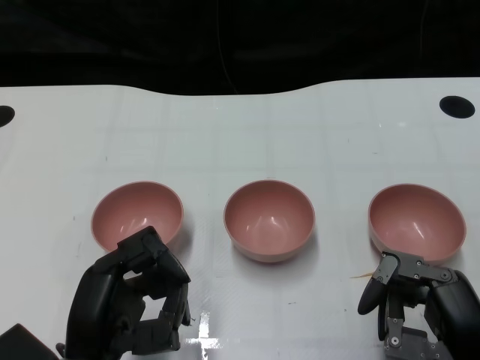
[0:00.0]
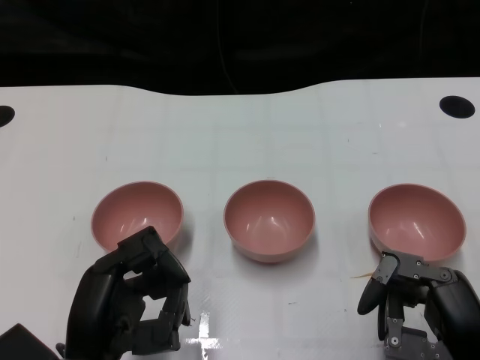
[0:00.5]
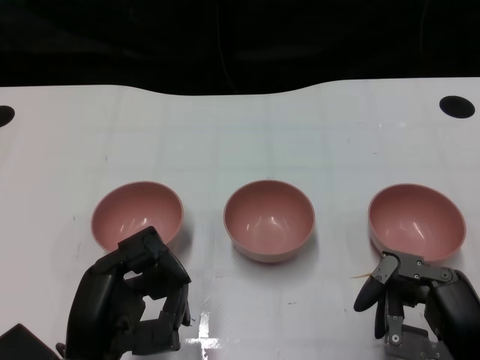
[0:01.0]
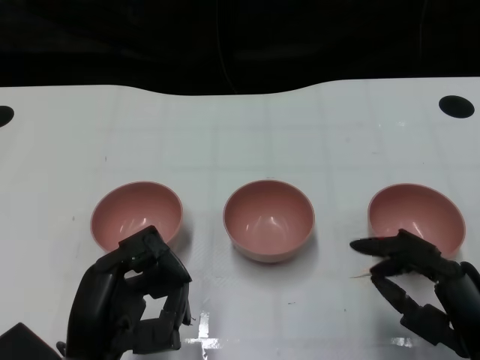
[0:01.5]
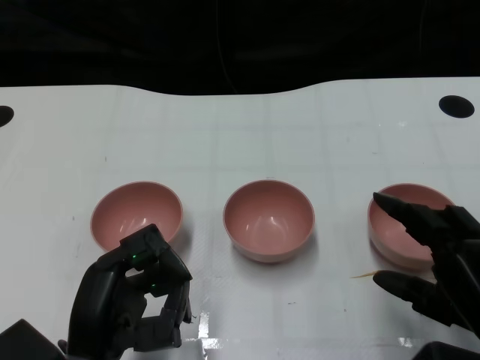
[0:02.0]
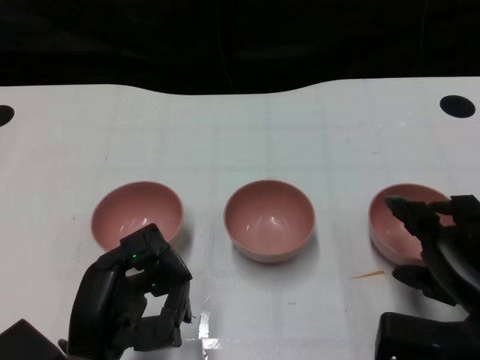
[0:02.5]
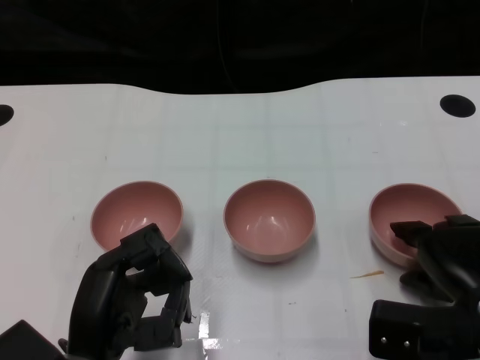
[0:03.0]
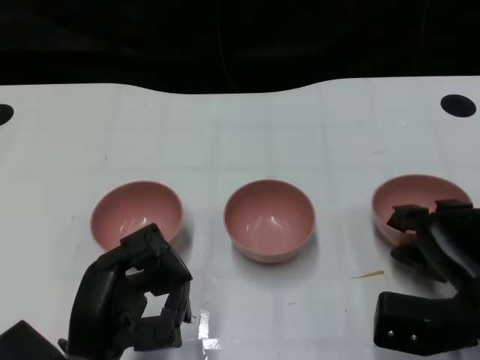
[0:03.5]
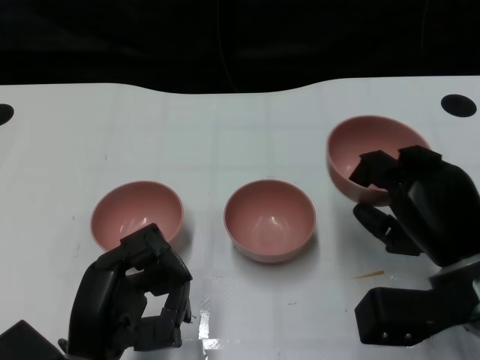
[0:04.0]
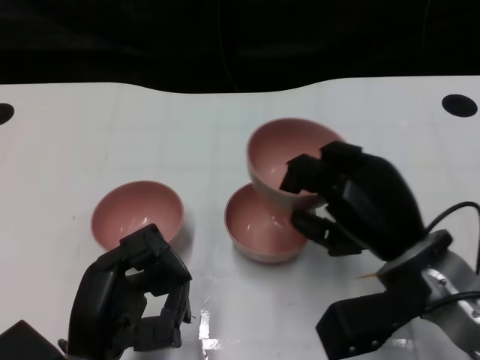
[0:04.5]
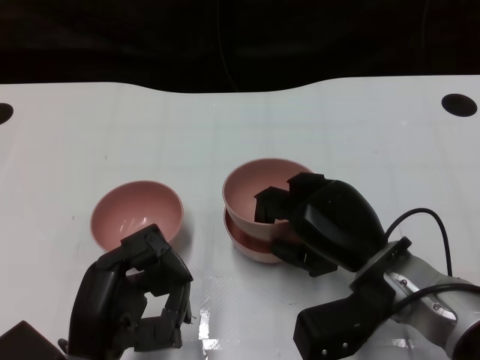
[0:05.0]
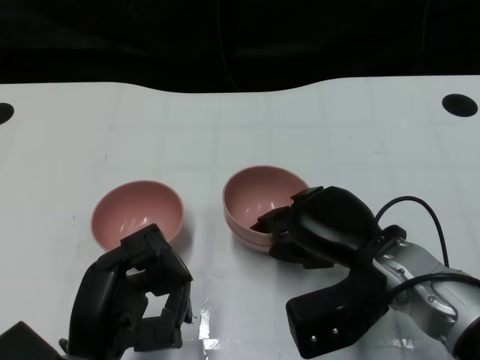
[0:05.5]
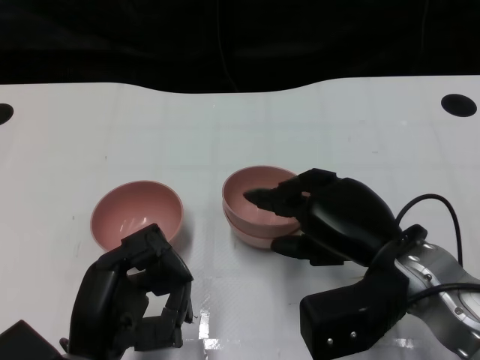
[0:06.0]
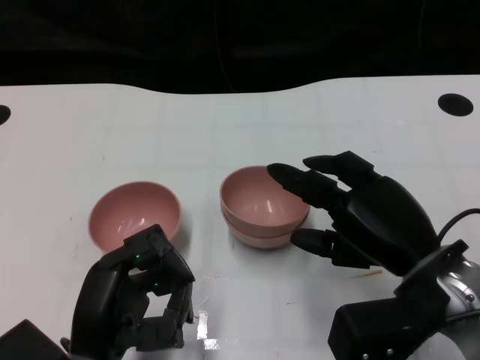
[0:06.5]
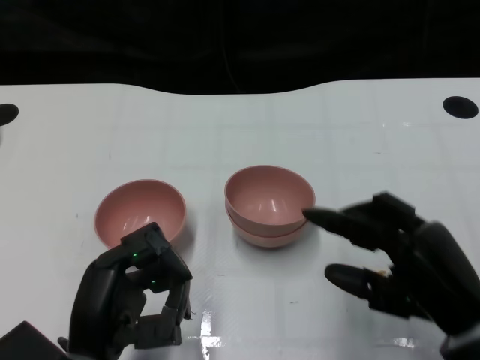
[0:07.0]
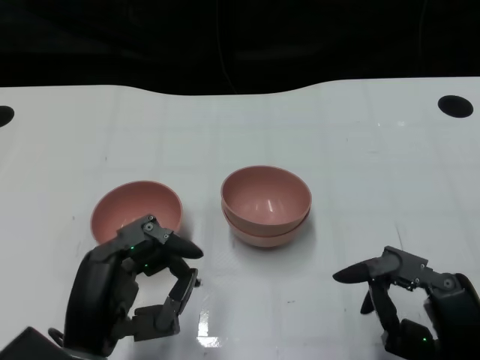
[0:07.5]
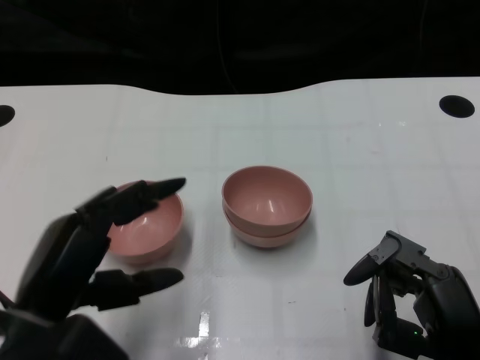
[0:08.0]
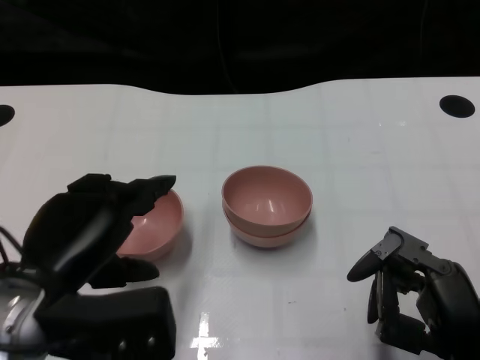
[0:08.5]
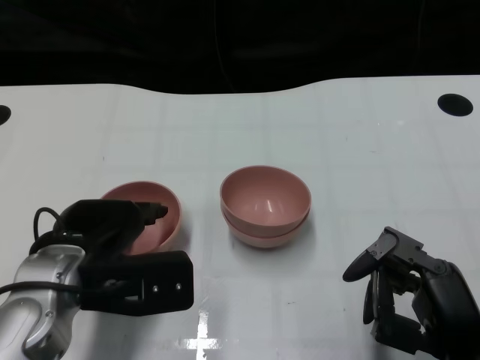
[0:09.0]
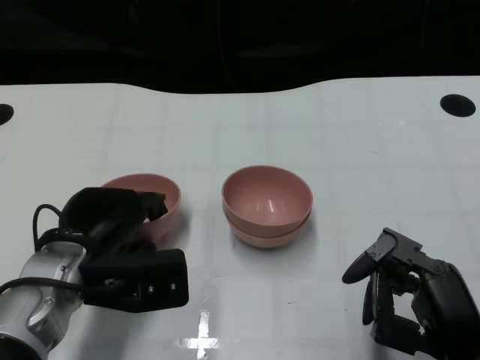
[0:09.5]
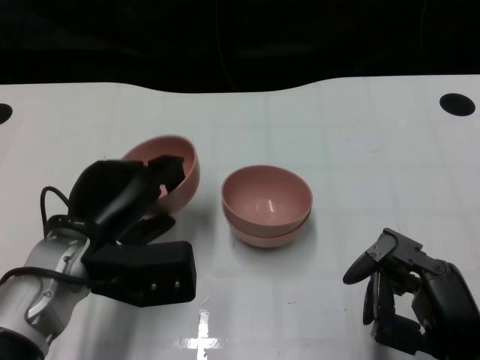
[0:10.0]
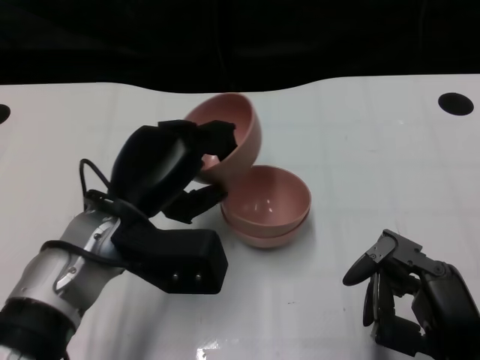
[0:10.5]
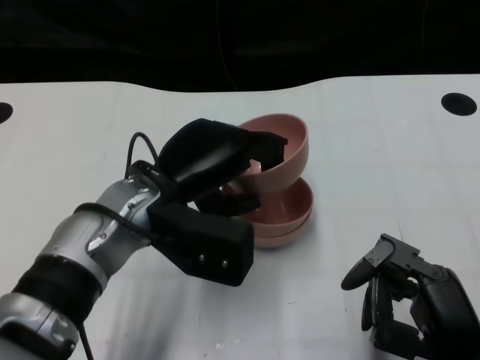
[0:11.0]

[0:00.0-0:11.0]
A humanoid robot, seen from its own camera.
Task of the whole recording: Pick up the bowl on one side of the table and place it on top of the middle bowl, then pick up the bowl on the other side of the table and place it on top of the middle bowls.
Step, 0:01.5 to 0:03.5: Grasp the bowl on the right with the right gripper.
Step, 0:04.0 to 0:06.0: Place the bowl on the right onto the bowl in the middle with right gripper.
Step, 0:06.5 to 0:09.5: Grasp the bowl on the left with the left gripper.
0:02.0 to 0:03.5: The right hand is displaced forward by roughly 5 cm.
0:03.5 to 0:05.5: The right hand is displaced to the left by approximately 10 cm.
0:05.5 to 0:07.5: The right hand travels backward and to the right by approximately 15 cm.
0:07.5 to 0:09.0: The left hand goes some 10 cm forward.
0:09.0 to 0:11.0: The left hand shifts some 10 cm to the right.

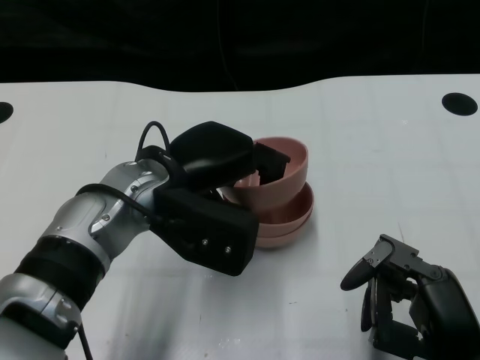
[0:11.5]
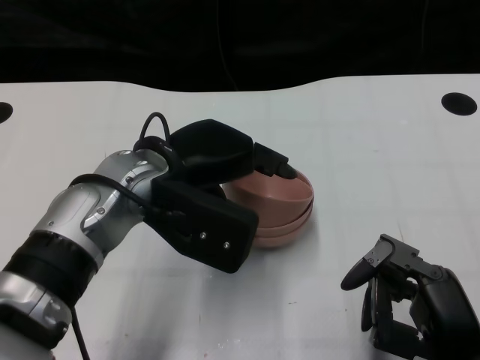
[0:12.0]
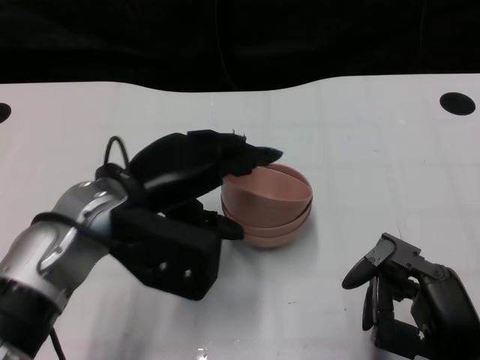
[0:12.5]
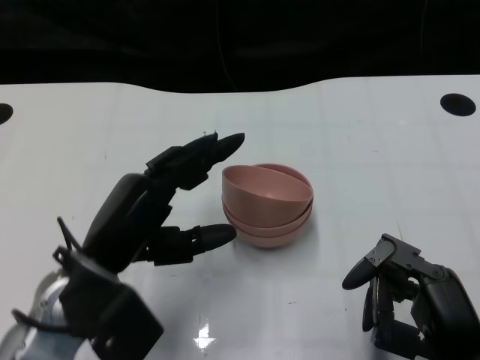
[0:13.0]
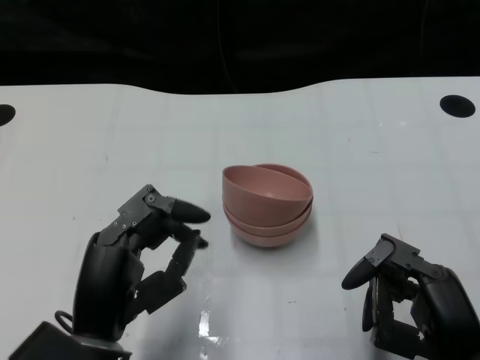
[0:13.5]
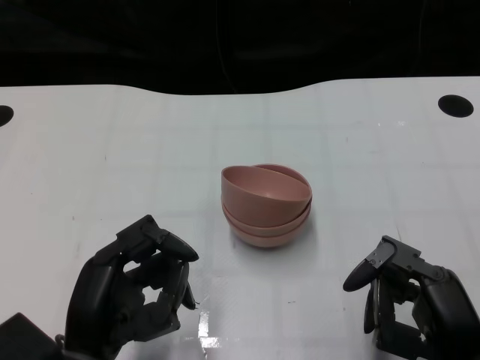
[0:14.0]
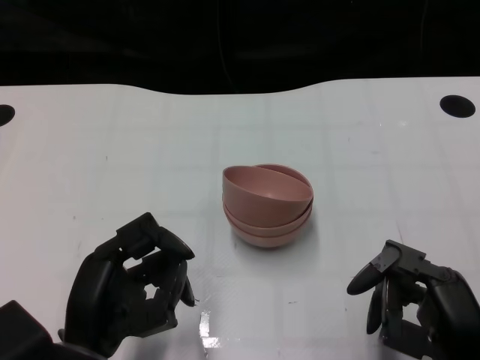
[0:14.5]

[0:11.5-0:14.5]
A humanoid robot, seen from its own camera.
Task of the whole recording: Pick up the bowl on one side of the table and place it on top of the middle bowl, then pick up the bowl on the other side of the table and place it on top of the middle bowls.
0:11.5 to 0:13.0: The left hand moves backward and to the left, some 10 cm.
0:13.0 to 0:14.5: The left hand goes approximately 5 cm backward.

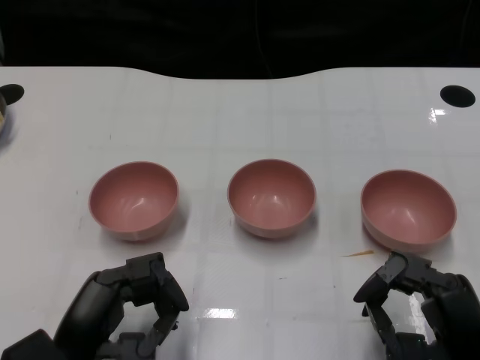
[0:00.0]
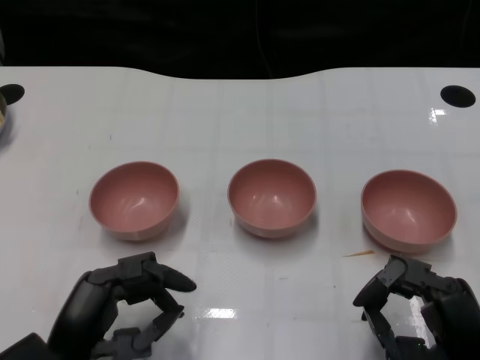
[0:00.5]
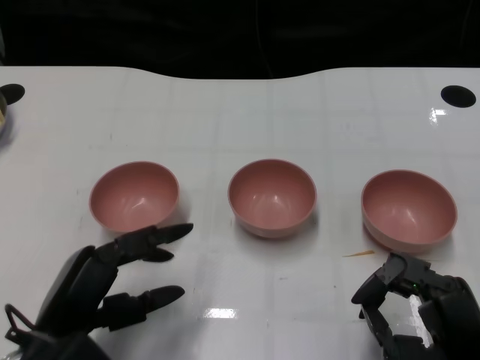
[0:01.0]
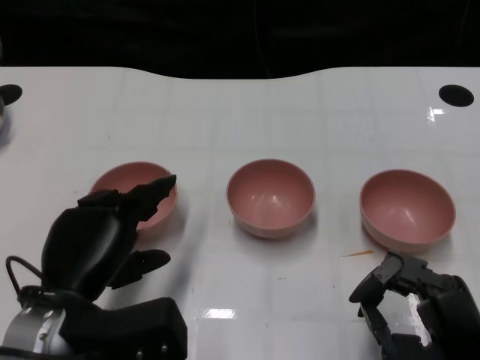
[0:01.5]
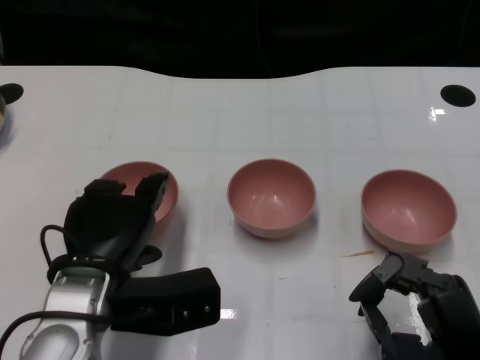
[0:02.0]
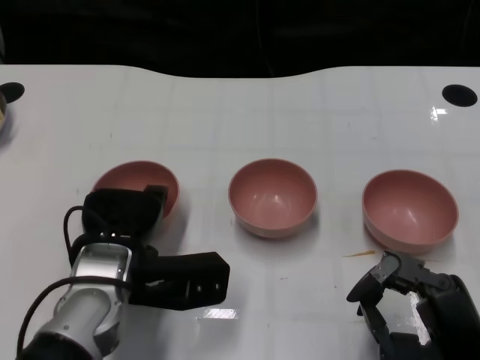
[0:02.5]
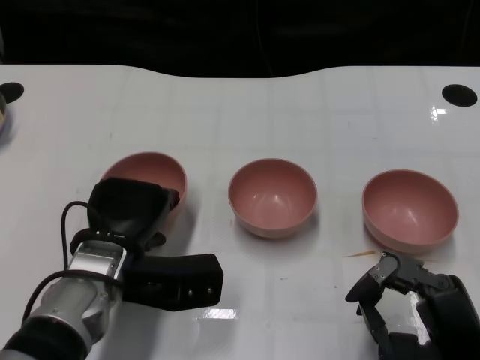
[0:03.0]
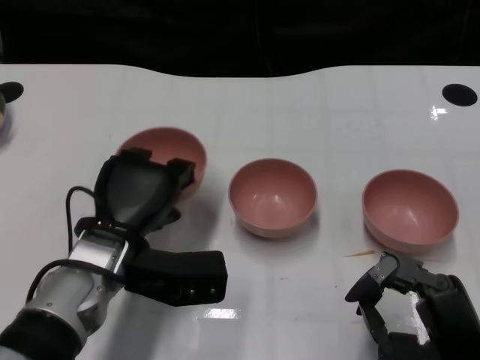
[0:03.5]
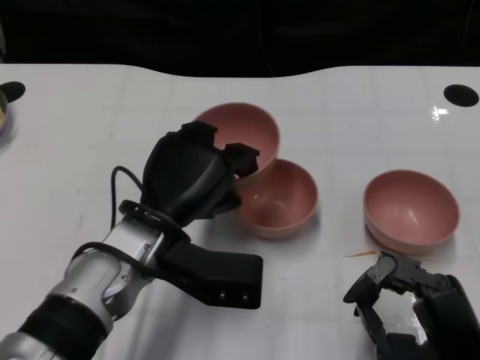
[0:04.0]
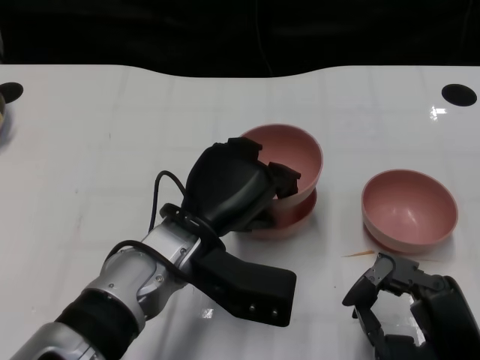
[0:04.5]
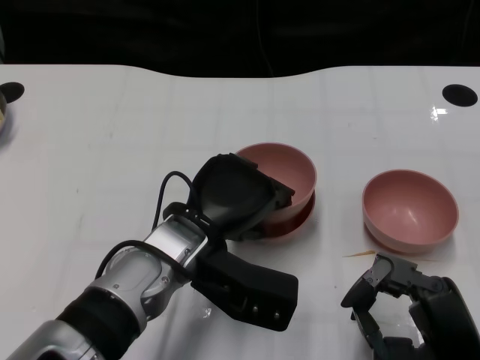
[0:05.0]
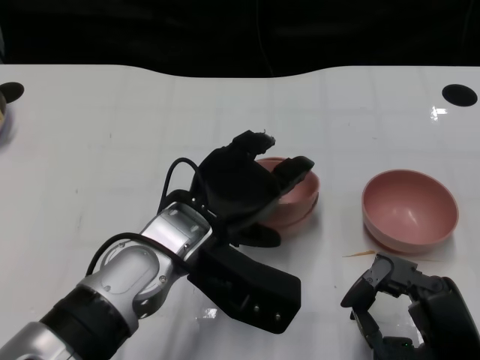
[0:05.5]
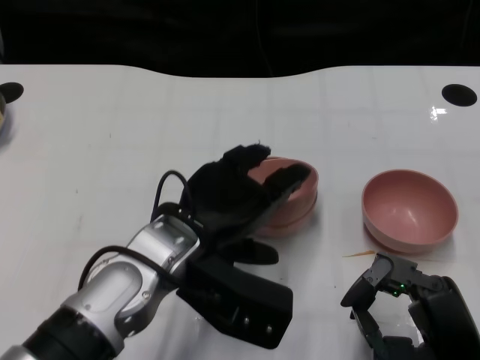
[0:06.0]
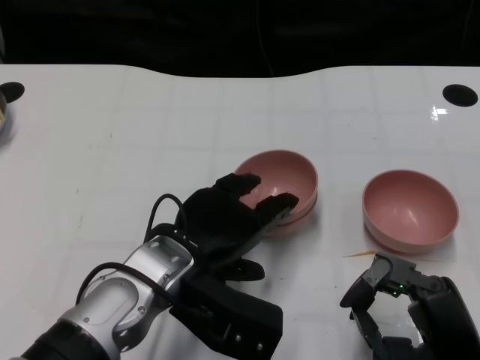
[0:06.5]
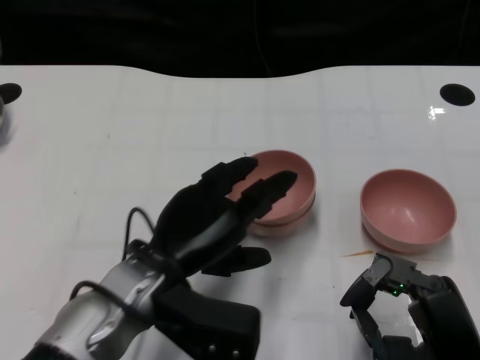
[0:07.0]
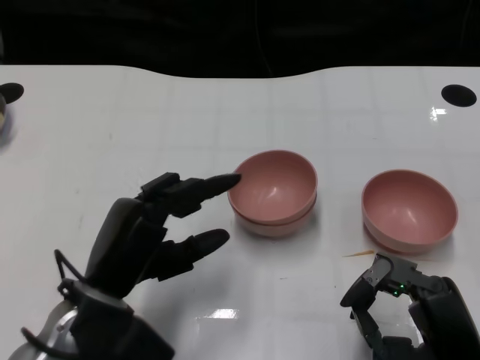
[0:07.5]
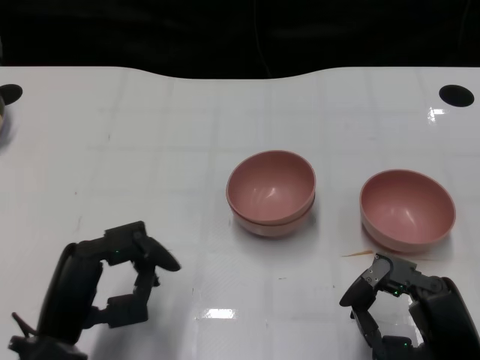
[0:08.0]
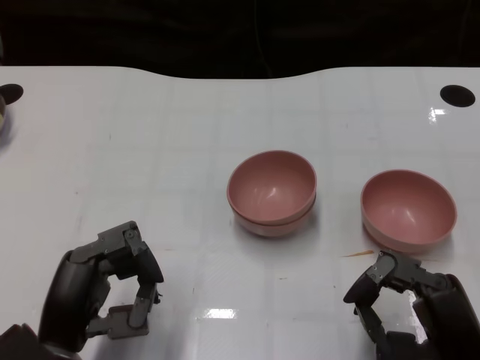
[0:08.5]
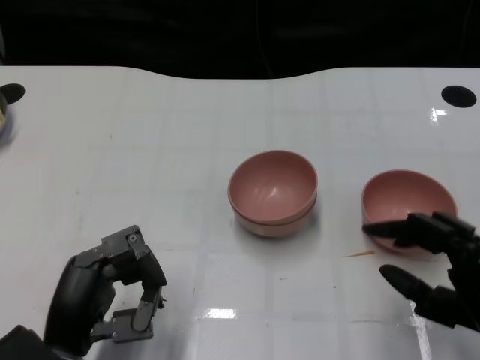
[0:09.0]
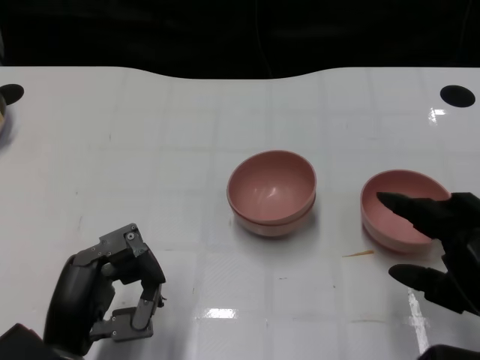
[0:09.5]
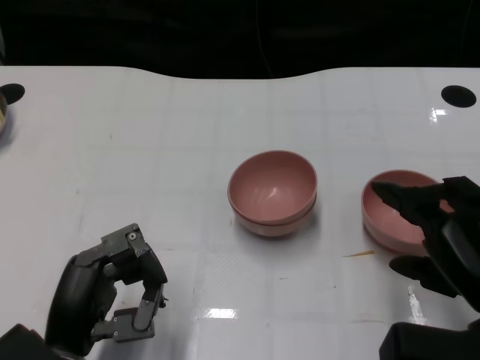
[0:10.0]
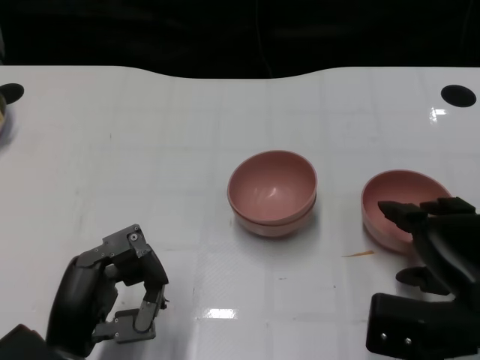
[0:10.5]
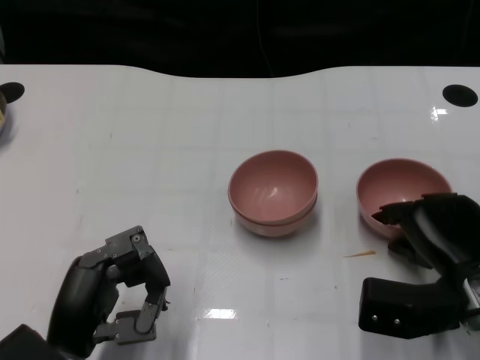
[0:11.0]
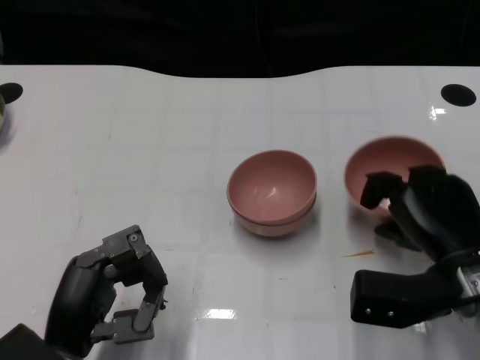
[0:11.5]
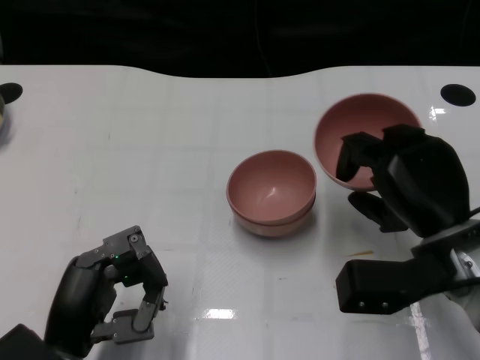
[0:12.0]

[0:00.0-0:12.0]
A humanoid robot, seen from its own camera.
Task of the whole recording: Pick up the bowl on one side of the table and place it on top of the middle bowl, then pick up the bowl on the other side of the table and place it on top of the middle bowls.
Step, 0:00.5 to 0:02.5: Grasp the bowl on the left with the left gripper.
Step, 0:03.0 to 0:07.0: Place the bowl on the left onto the bowl in the middle with left gripper.
Step, 0:07.5 to 0:11.0: Grasp the bowl on the right with the right gripper.
0:02.0 to 0:04.0: The left hand moves to the right, about 5 cm.
0:06.0 to 0:08.0: The left hand is displaced to the left, backward and downward by approximately 15 cm.
0:08.0 to 0:10.0: The right hand moves upward, approximately 5 cm.
0:10.0 to 0:12.0: The right hand goes some 10 cm forward.
